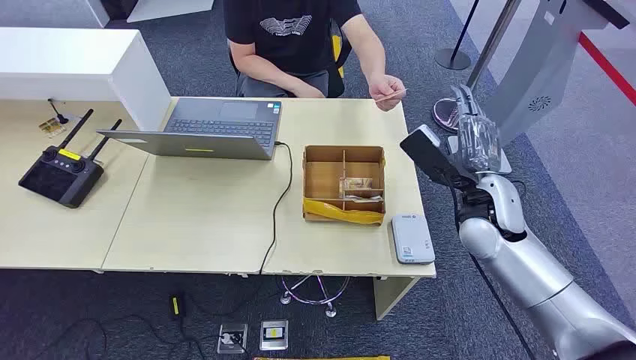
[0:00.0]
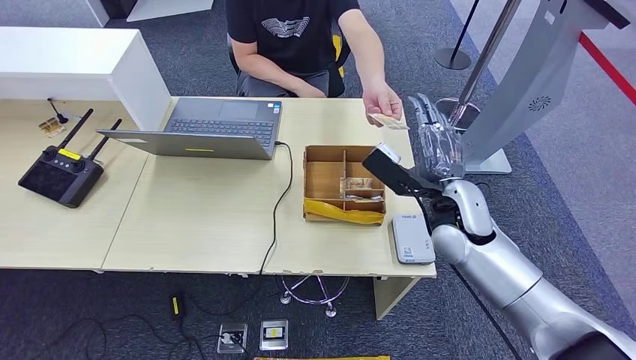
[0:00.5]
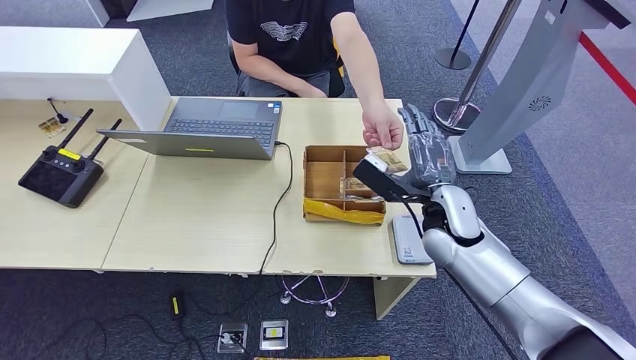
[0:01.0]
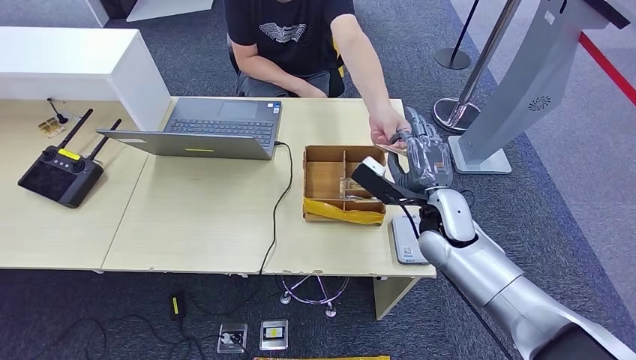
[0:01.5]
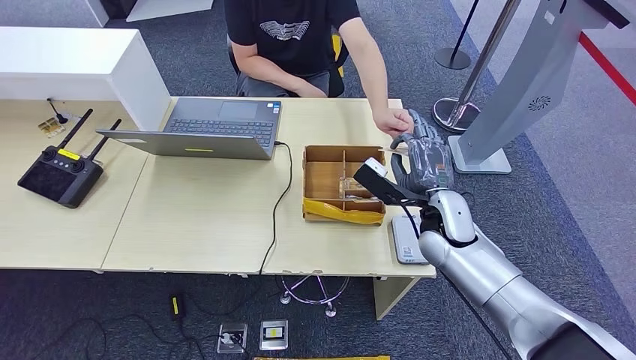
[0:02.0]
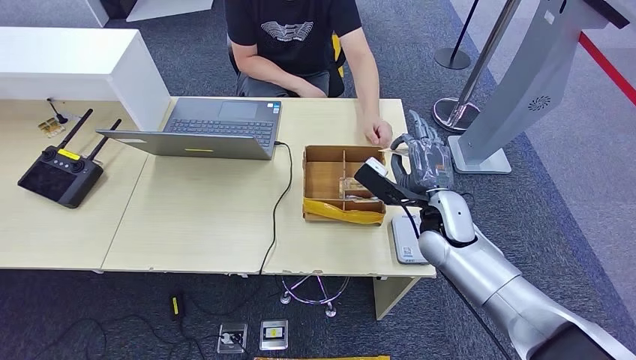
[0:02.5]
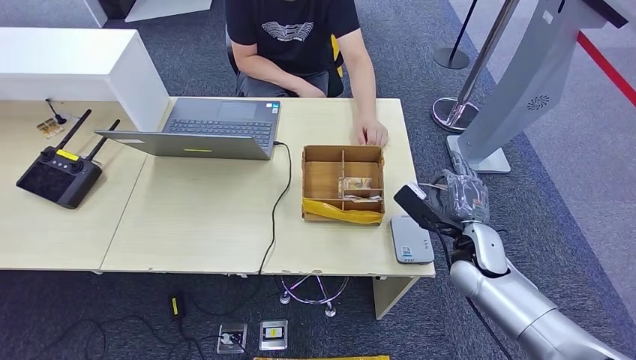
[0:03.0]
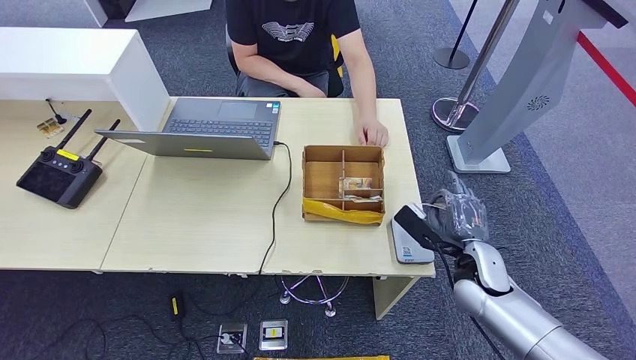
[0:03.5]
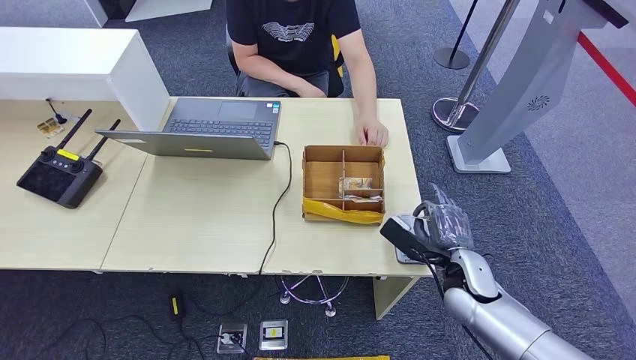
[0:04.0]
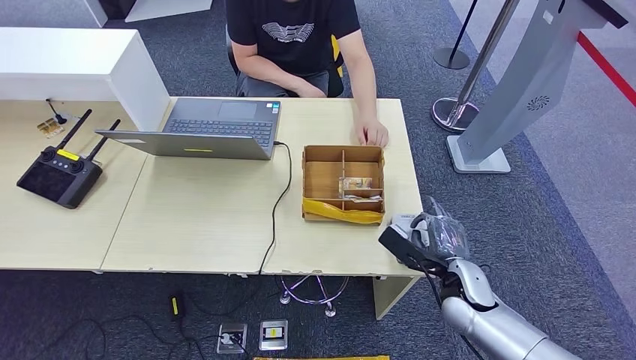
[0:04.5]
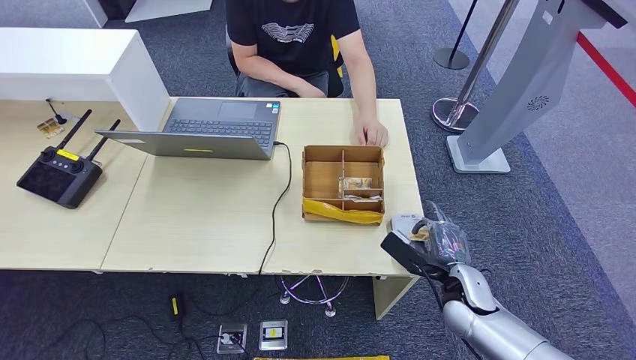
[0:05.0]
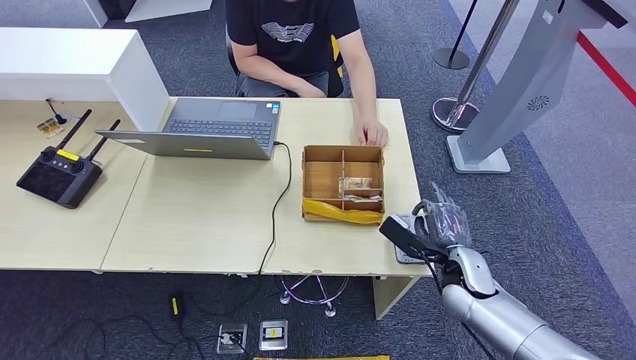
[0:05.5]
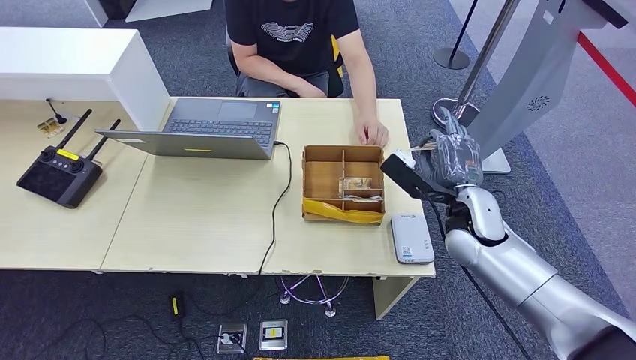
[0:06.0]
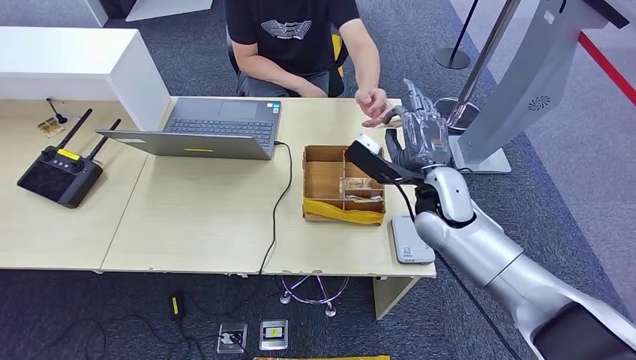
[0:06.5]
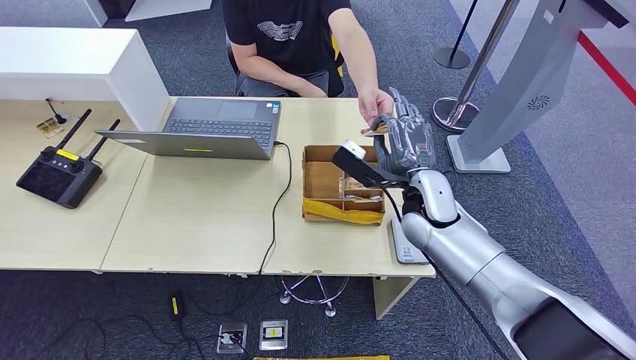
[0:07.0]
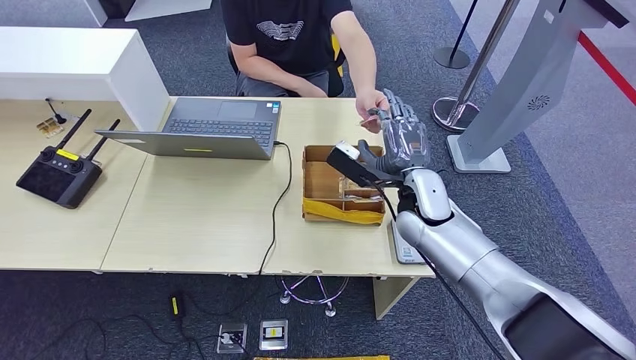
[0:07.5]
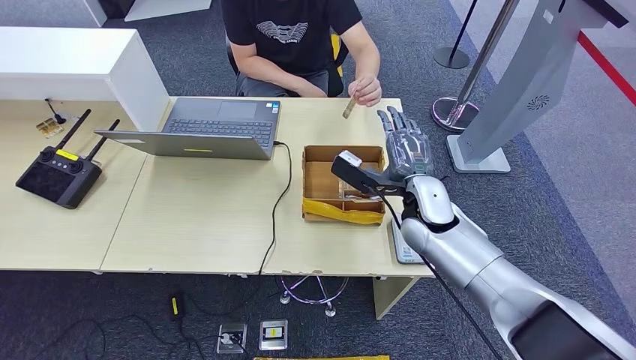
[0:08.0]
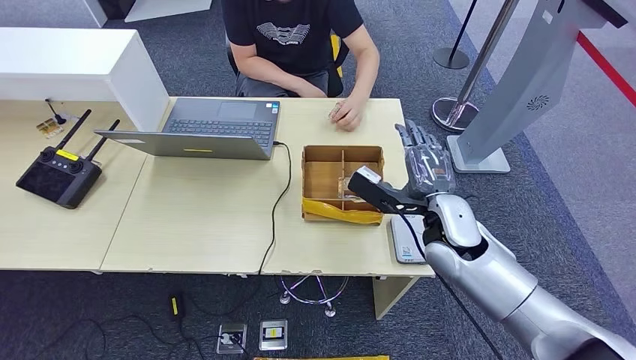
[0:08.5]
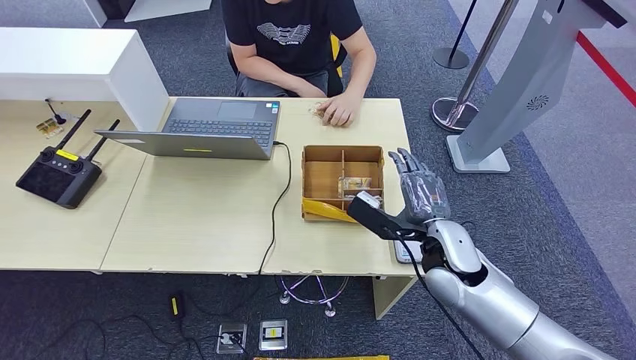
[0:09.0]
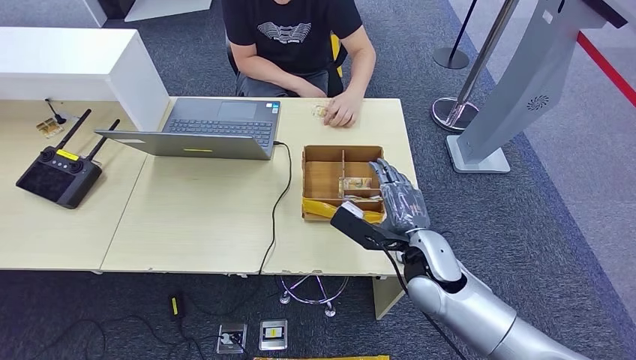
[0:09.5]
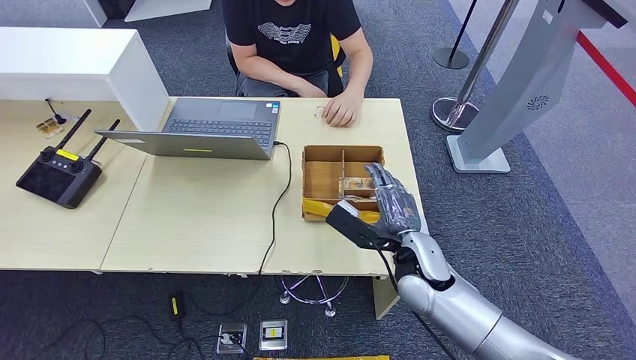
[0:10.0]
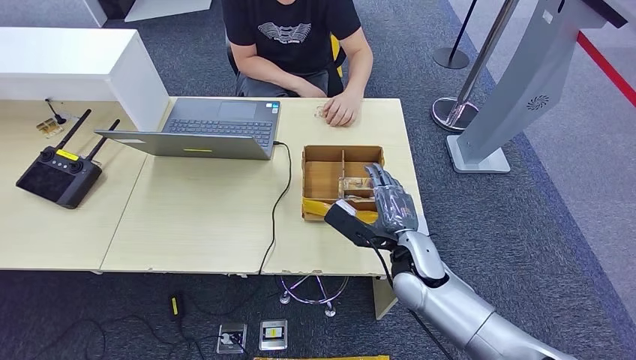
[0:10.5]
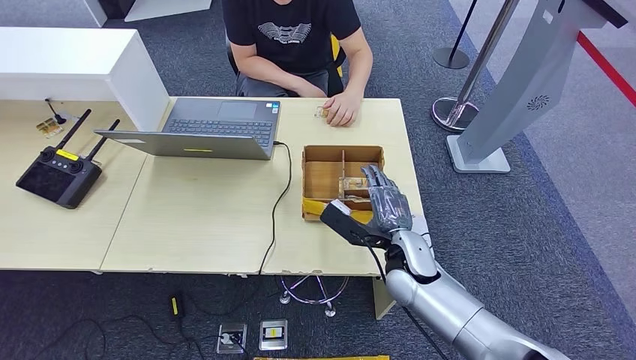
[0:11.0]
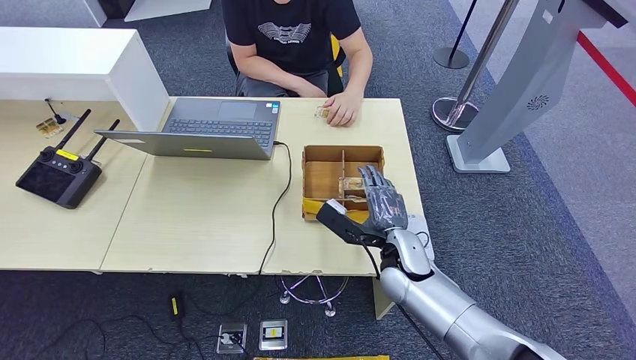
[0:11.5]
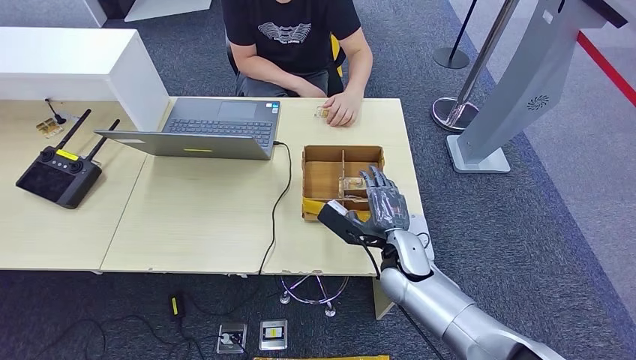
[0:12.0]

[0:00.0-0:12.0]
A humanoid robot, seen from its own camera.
Step, 0:00.0 to 0:02.5: Take the ID card from the person's hand.
Step, 0:04.0 to 0:04.5: Place the ID card on the card reader.
Step, 0:06.0 to 0:07.5: Hand the ID card to the person.
0:02.0 to 0:04.0: The right hand is displaced downward, backward and to the right by about 10 cm.
0:04.0 to 0:06.0: The right hand heads upward and forward, covering some 10 cm.
0:06.0 to 0:08.0: The right hand moves to the left, about 5 cm.
0:08.0 to 0:10.0: The right hand travels backward and downward by some 10 cm.
0:10.0 to 0:12.0: The hands stay close to where they were, moving slightly.

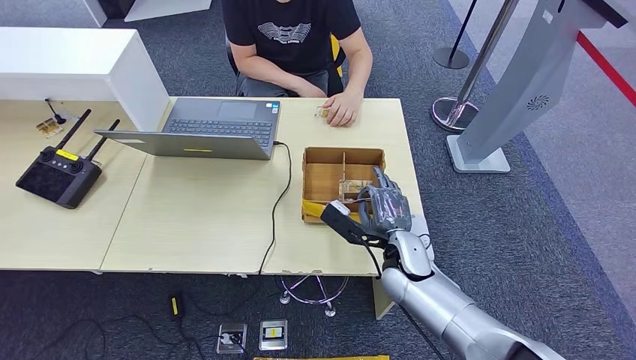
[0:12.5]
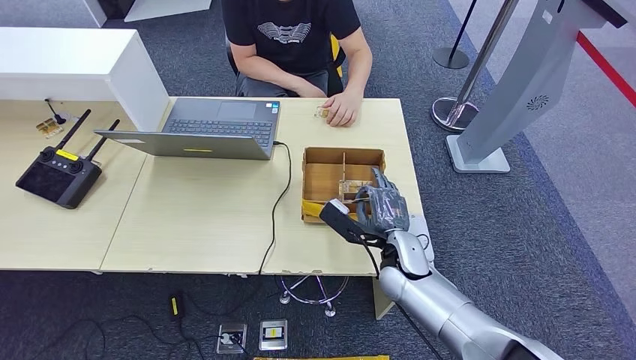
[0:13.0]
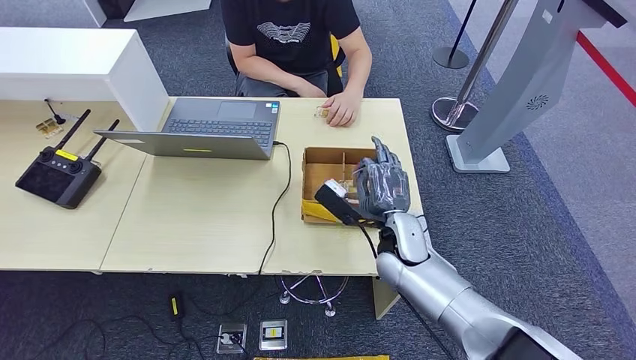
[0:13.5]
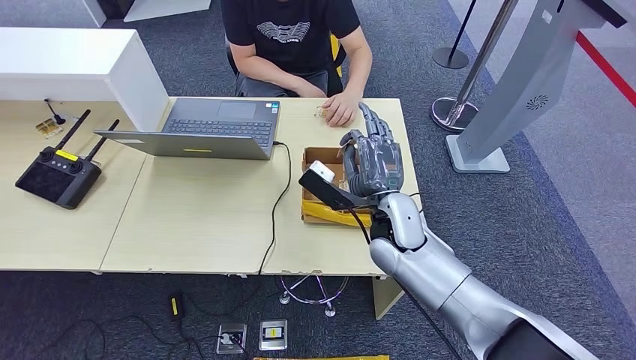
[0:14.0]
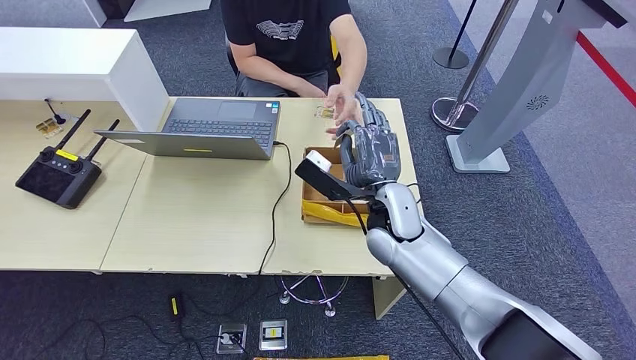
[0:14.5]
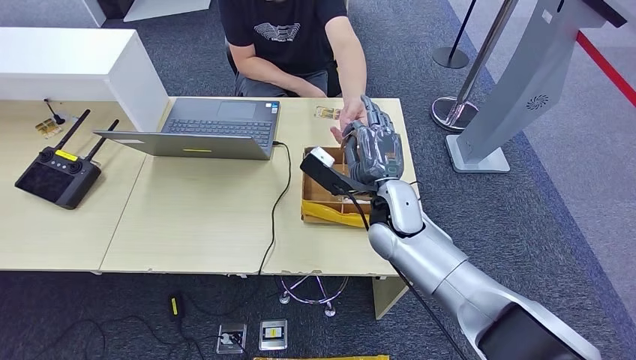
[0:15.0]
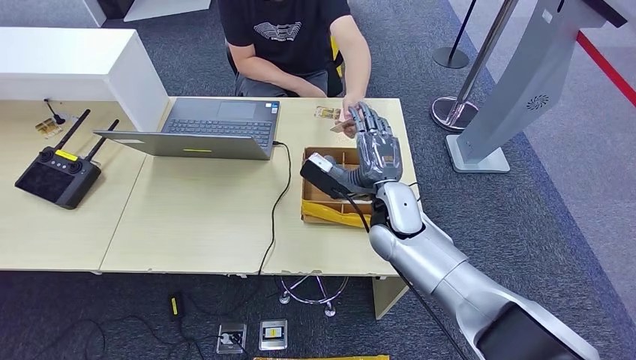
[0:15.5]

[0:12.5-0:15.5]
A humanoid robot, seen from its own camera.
Step, 0:14.5 to 0:15.5: Hand the room key to the person.
0:12.5 to 0:14.0: The right hand heads upward, covering about 10 cm.
0:14.0 to 0:15.5: The hands stay close to where they were, moving slightly.
